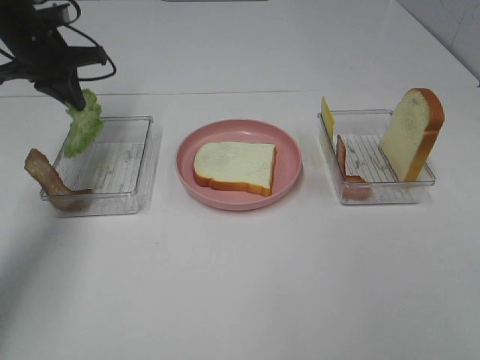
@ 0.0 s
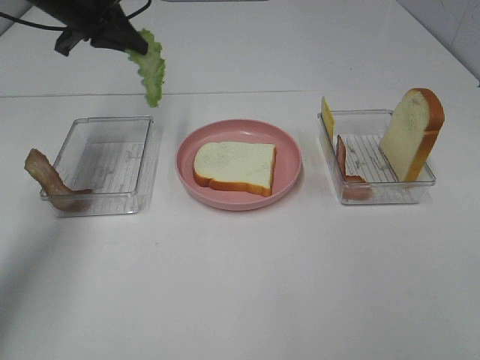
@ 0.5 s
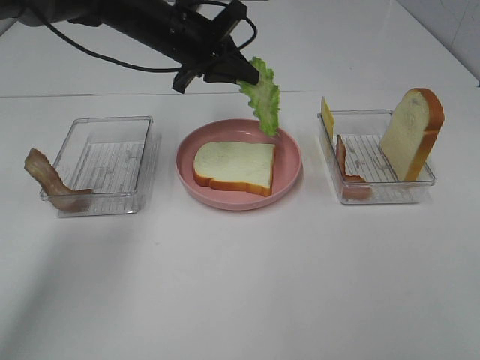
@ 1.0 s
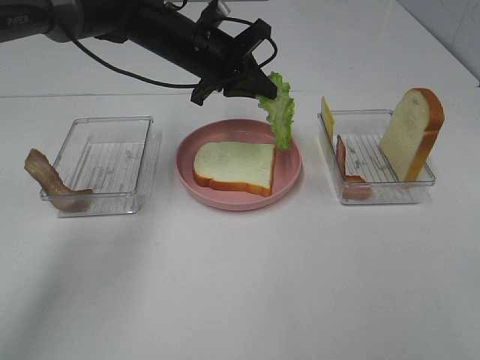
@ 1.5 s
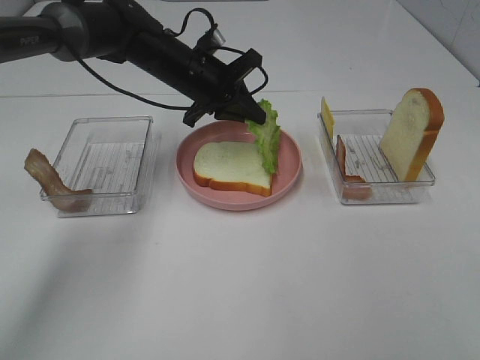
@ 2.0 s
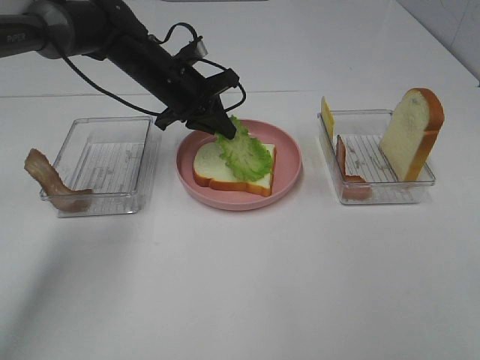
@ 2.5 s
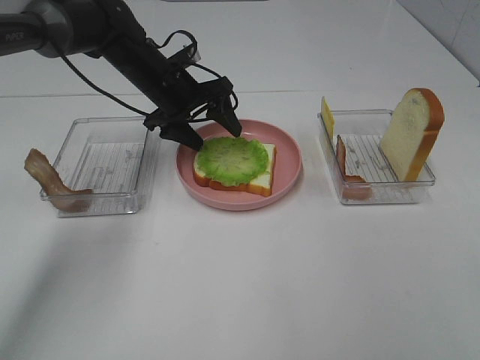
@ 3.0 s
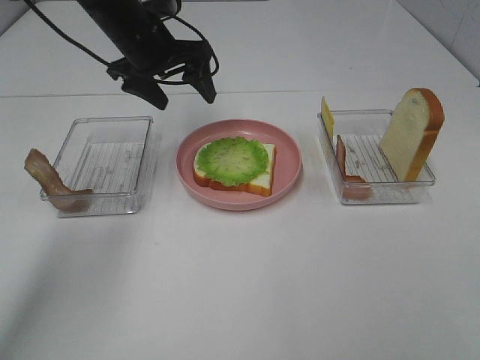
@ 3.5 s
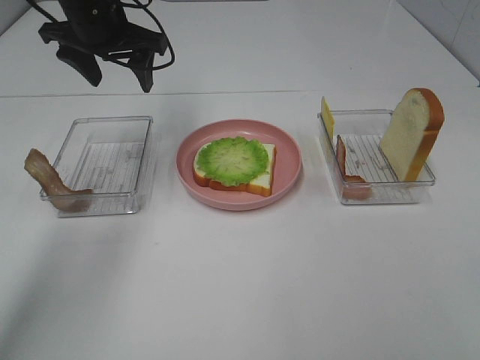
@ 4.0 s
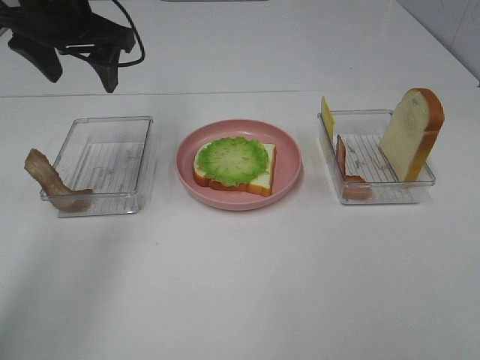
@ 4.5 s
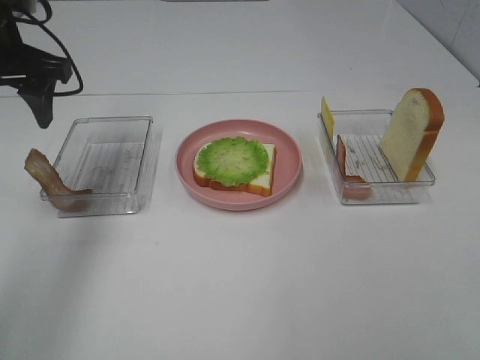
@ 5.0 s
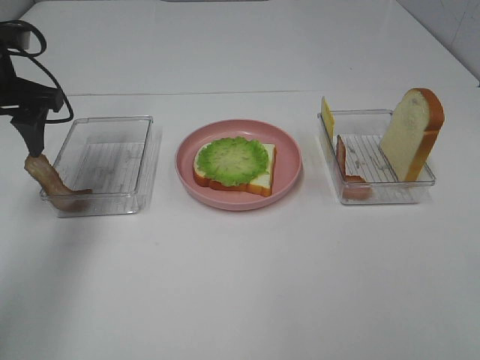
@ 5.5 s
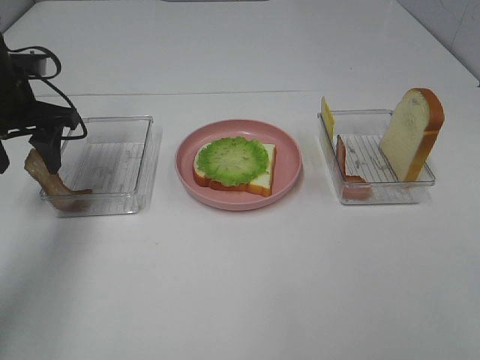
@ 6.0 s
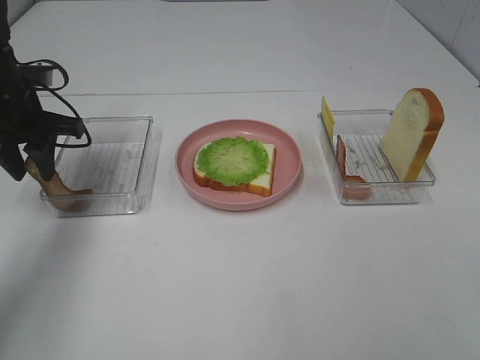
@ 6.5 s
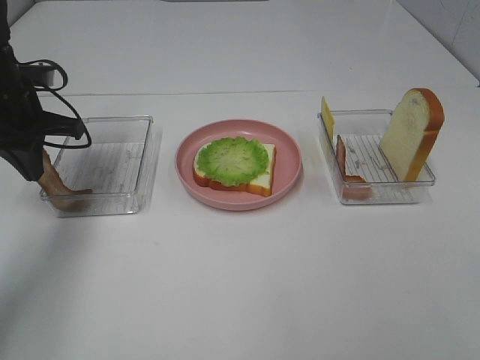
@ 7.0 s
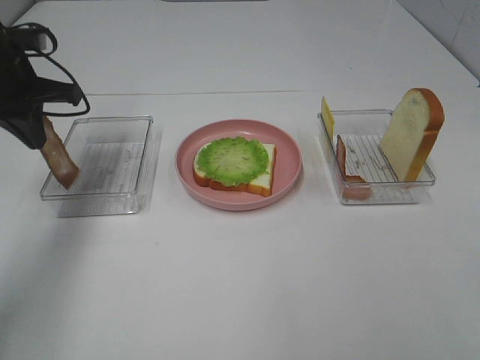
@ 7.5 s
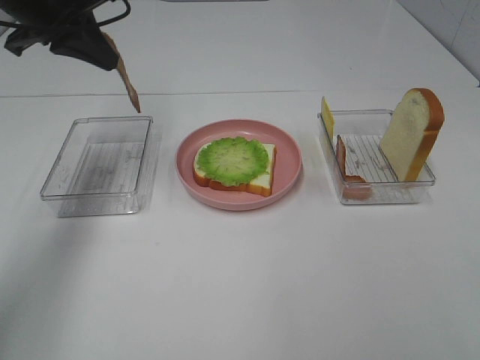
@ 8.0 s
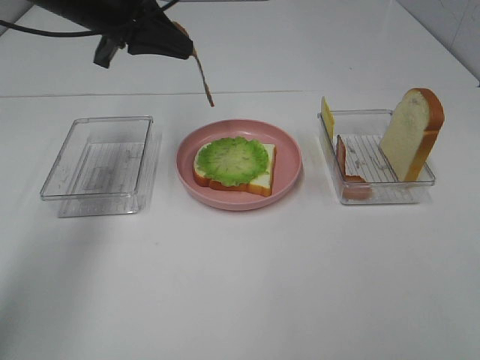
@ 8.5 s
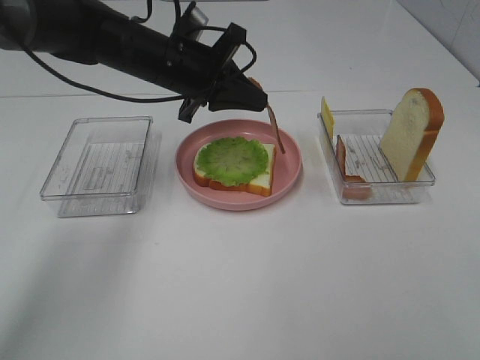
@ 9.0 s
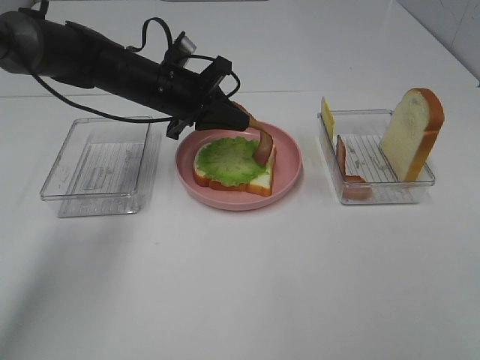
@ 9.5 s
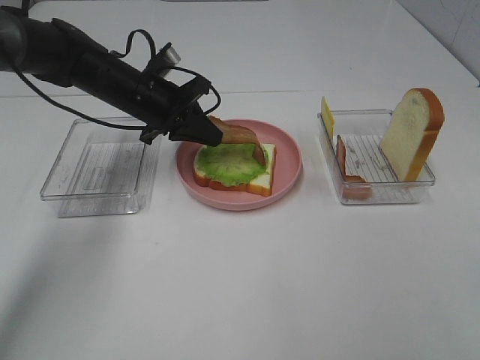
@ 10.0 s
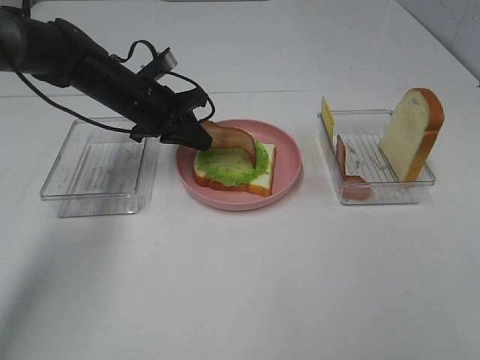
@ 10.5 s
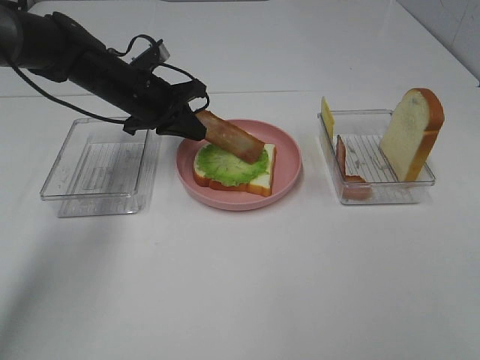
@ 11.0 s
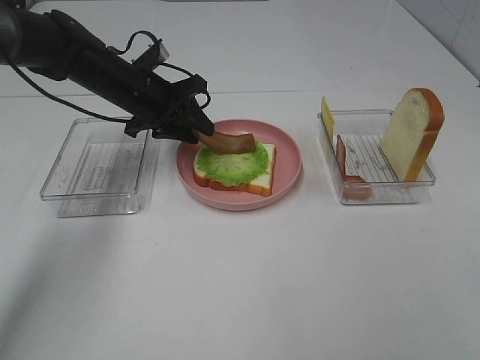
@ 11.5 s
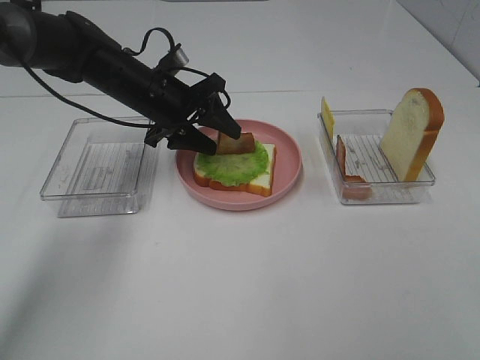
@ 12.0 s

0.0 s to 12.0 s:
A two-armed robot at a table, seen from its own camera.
Task of the whole recording: Make sandwiches.
Step, 0.0 to 3.0 s: Left hand:place the lettuce slice on the bread slice.
Step, 3.5 to 6.5 s: Left hand:grab the bacon.
0.0 to 2.0 s: The left gripper heads to the right, covering some 20 cm.
2.0 to 4.0 s: The left gripper shifts approximately 15 cm upward and to the left, and opens up.
4.0 to 6.0 s: The left gripper shifts about 15 cm to the left, backward and downward.
6.0 to 8.0 s: The left gripper shifts some 10 cm upward, and closes up.
8.0 to 10.0 s: The left gripper is displaced downward and to the right by approximately 15 cm.
10.0 to 12.0 s: The left gripper opens its fingers.

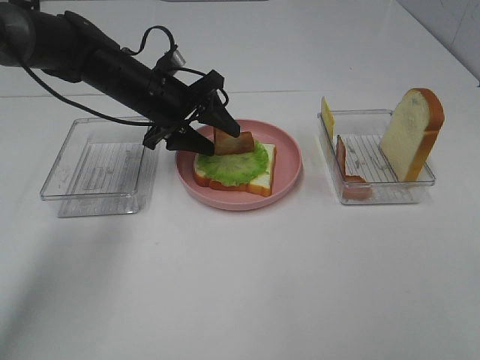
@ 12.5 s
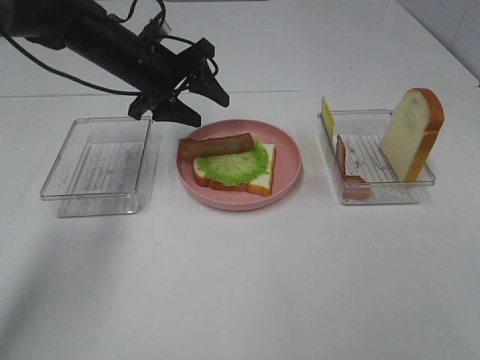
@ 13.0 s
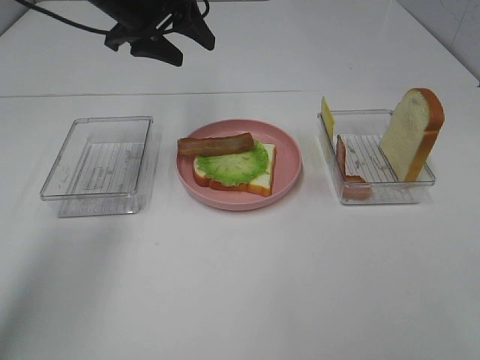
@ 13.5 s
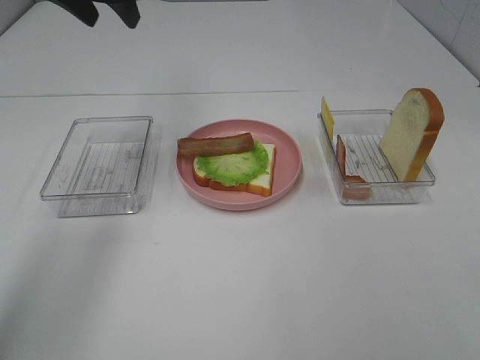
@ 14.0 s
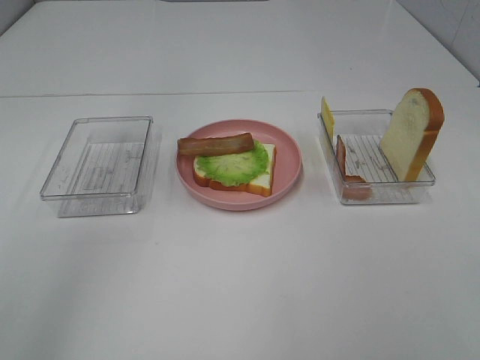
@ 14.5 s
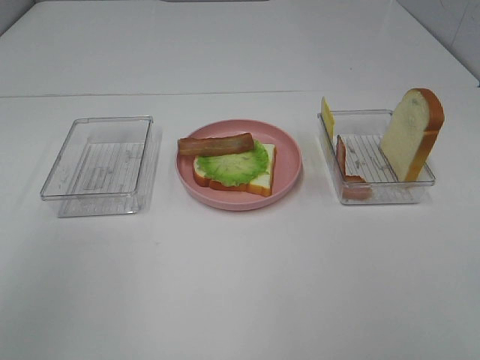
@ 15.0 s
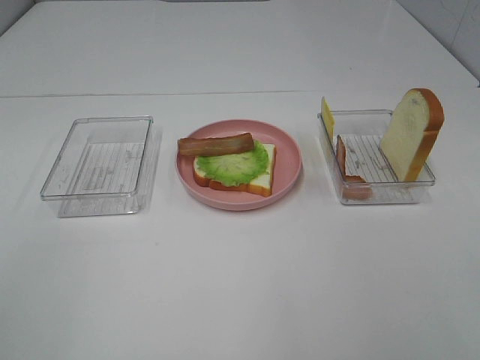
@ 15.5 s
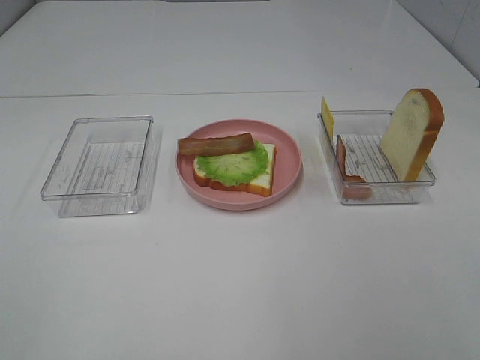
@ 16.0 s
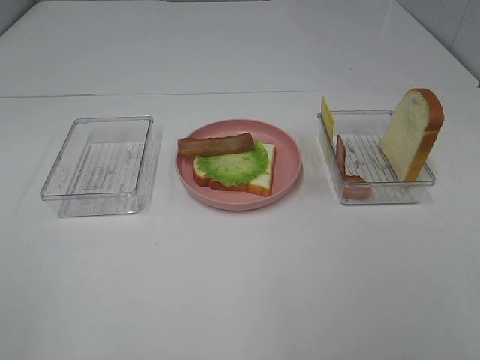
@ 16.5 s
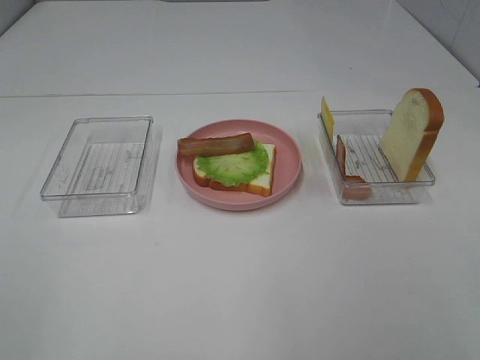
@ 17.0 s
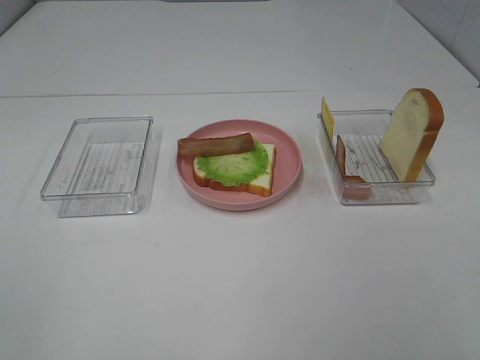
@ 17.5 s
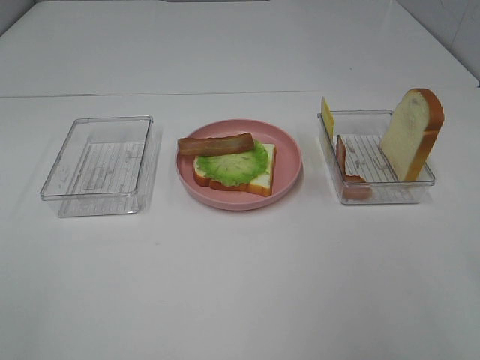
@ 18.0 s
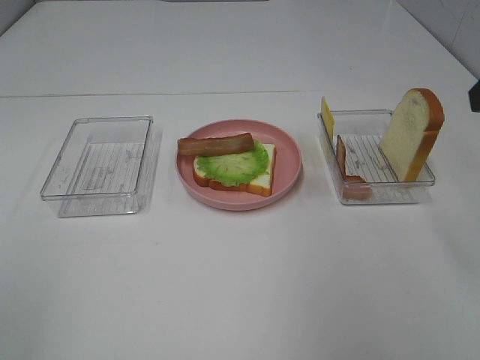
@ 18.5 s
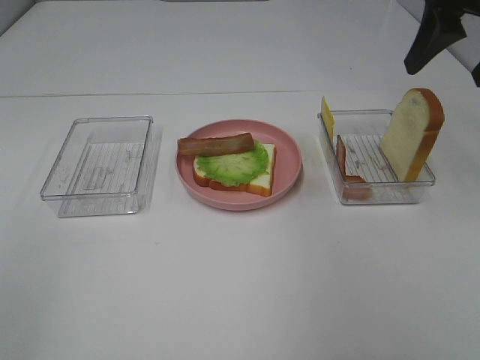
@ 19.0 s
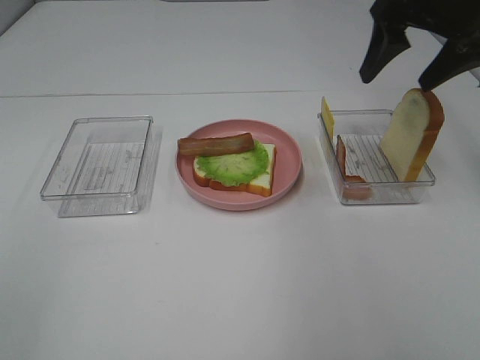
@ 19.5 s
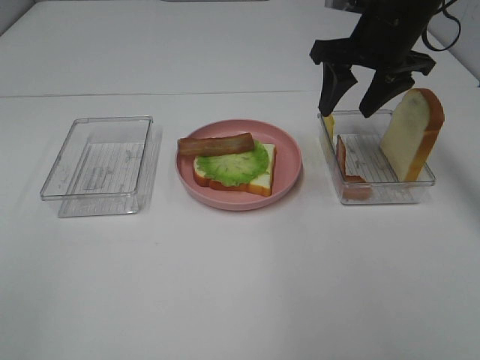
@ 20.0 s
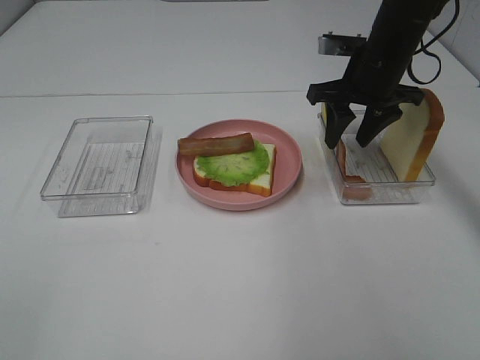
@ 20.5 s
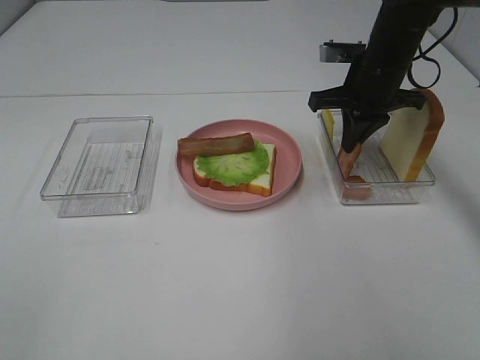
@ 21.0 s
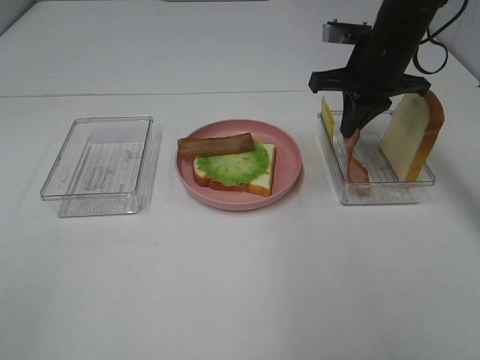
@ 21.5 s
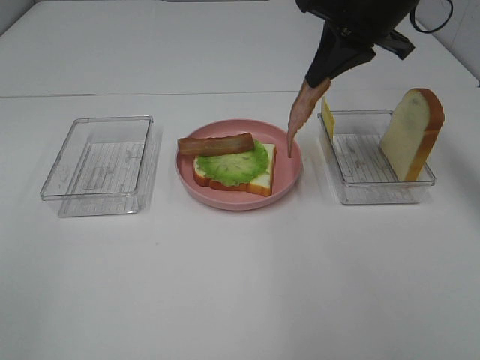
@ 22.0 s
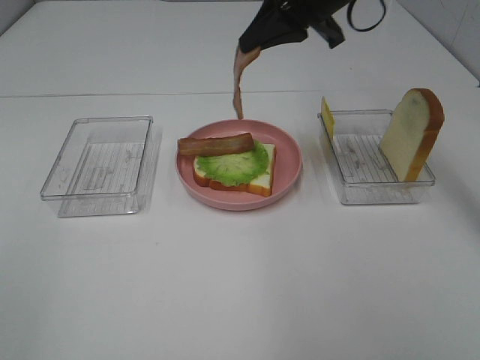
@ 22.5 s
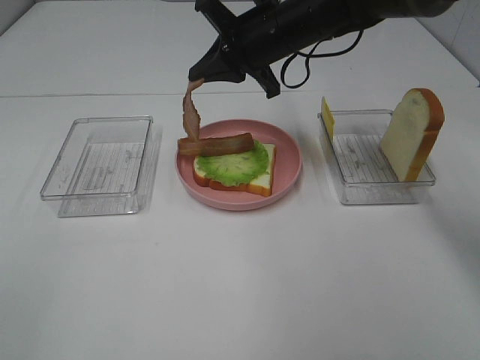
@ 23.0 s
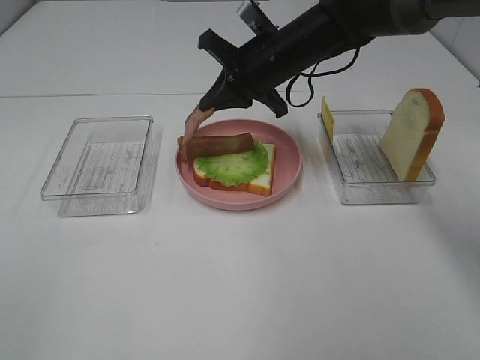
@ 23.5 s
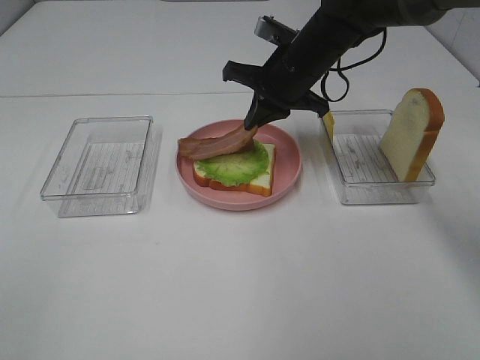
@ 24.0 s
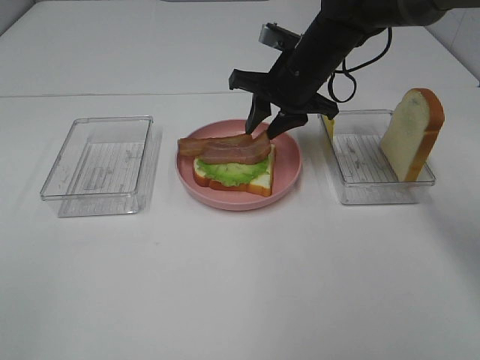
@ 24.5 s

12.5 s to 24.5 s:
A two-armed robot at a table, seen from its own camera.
Task of the whole recording: Make sandwiches.
Step, 13.5 to 21.0 s: Right hand:grab the bacon.
12.5 to 14.5 s: The left gripper goes some 35 cm upward and backward.
18.5 to 20.5 s: The right gripper travels forward, downward and to the left by about 25 cm, and closes.
20.5 to 22.5 s: The right gripper shifts about 10 cm upward and to the left, and closes.
22.5 to 24.5 s: The right gripper goes approximately 10 cm downward, and opens.

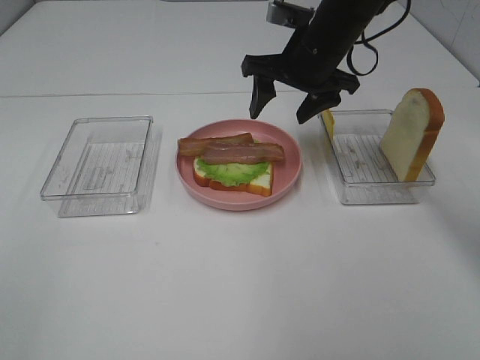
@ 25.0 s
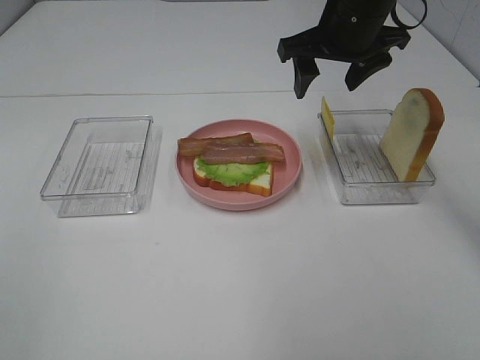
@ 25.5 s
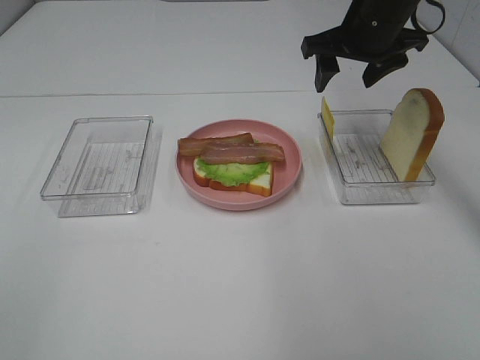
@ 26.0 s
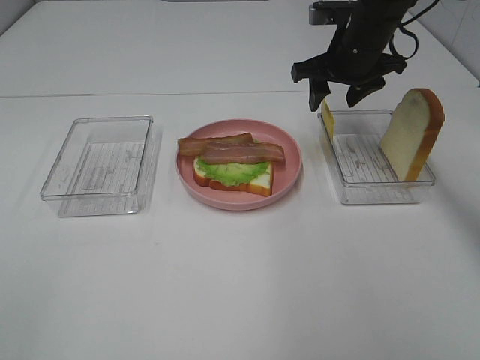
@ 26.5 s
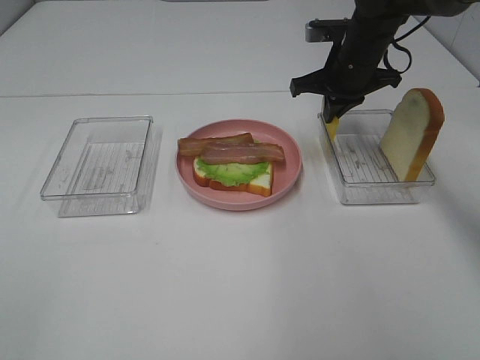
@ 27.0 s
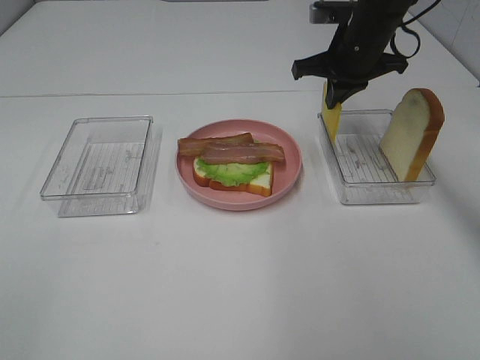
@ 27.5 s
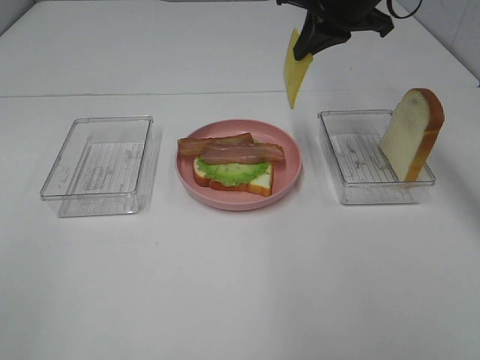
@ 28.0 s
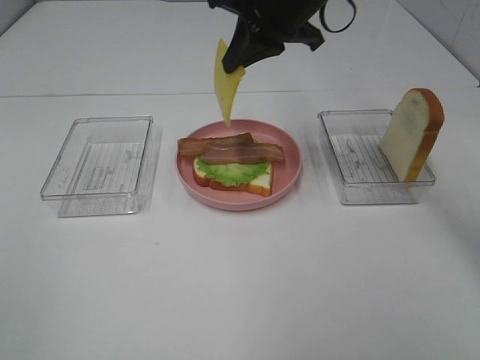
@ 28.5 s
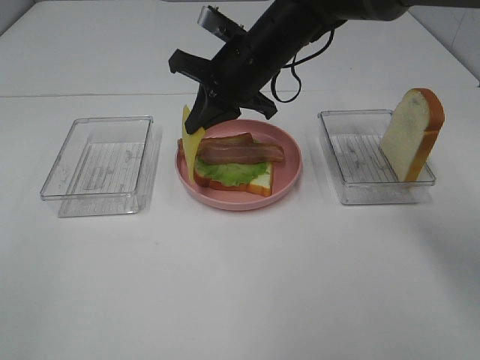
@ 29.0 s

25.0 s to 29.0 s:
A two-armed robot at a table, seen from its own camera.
Task of the whole recording: Make sandwiches.
Step, 25.0 to 27.0 s: Right hand:grab the cheese slice.
25.0 to 27.0 s: The right gripper moves to the right, approximately 5 cm, and closes up.
27.0 to 29.0 s: The right gripper is displaced to the left and backward by some 15 cm.
